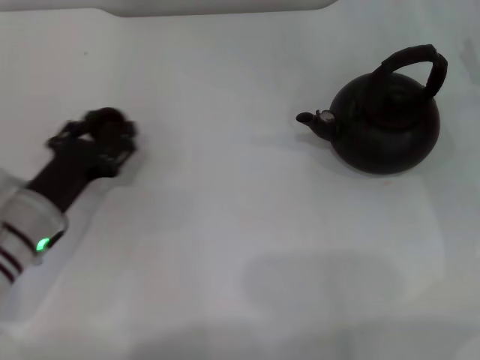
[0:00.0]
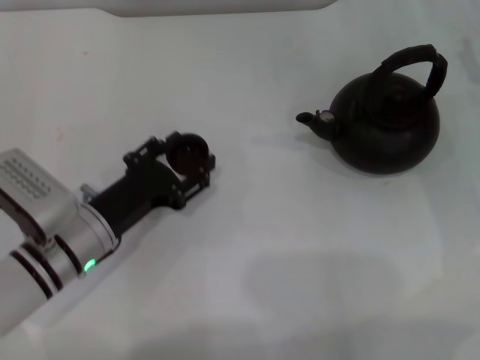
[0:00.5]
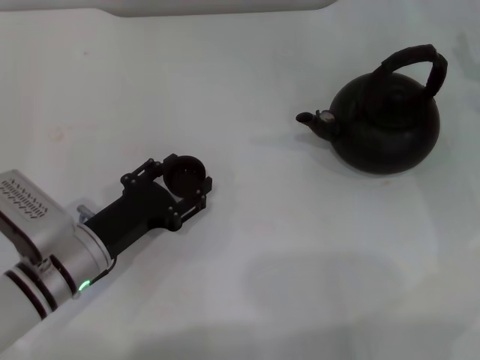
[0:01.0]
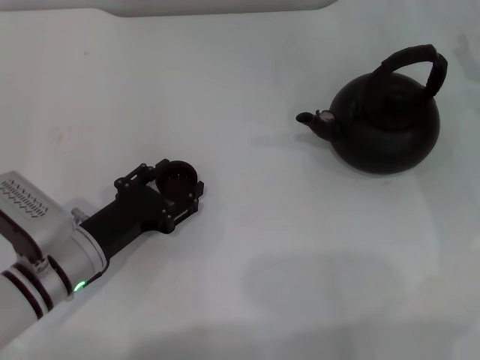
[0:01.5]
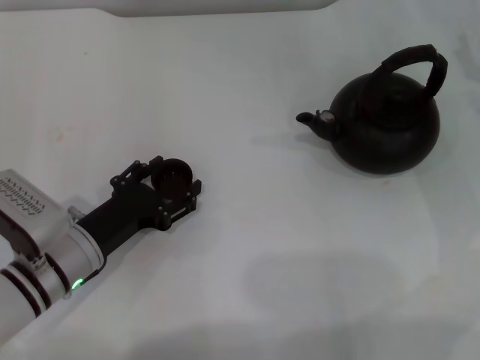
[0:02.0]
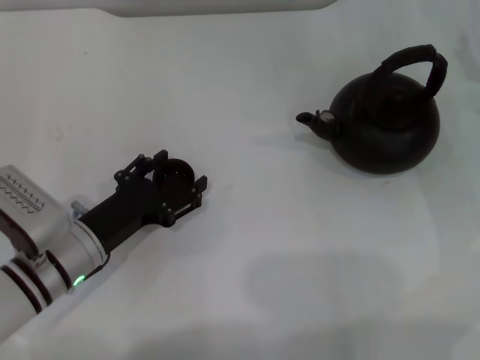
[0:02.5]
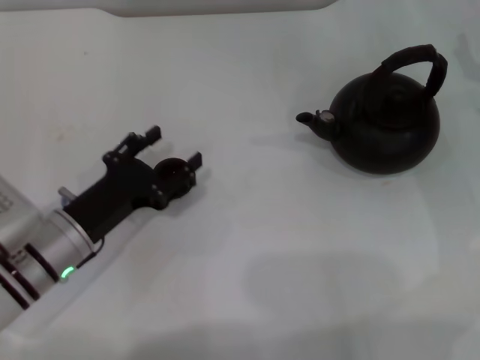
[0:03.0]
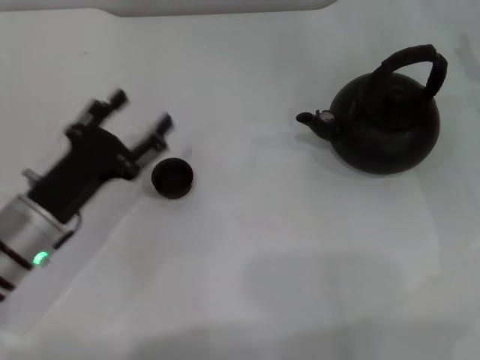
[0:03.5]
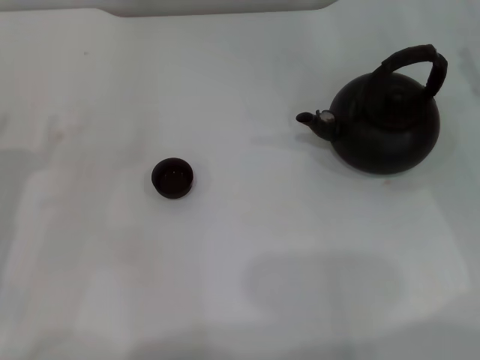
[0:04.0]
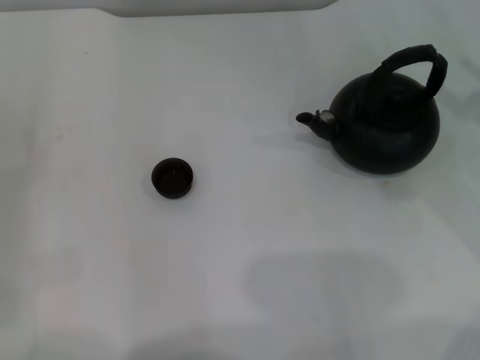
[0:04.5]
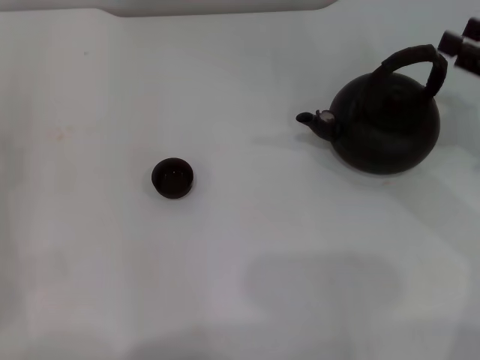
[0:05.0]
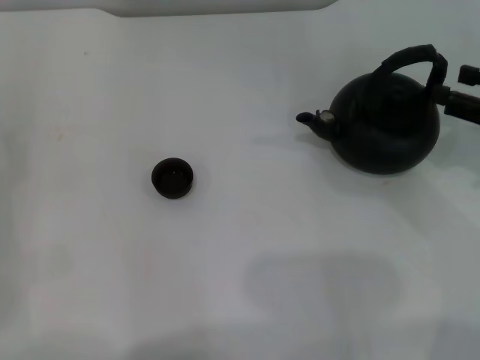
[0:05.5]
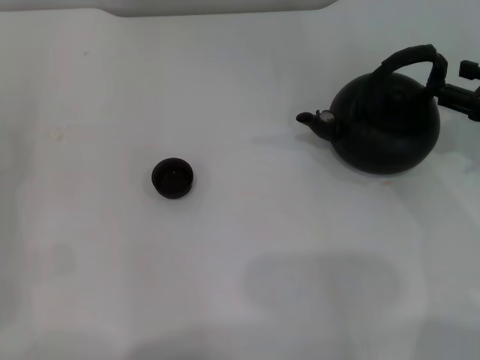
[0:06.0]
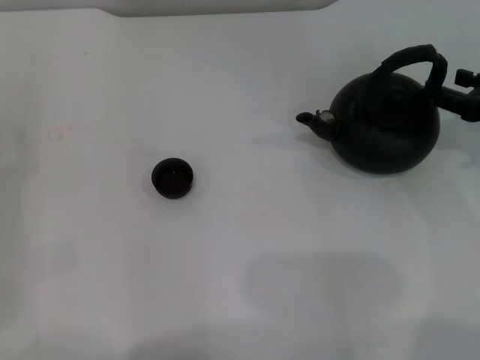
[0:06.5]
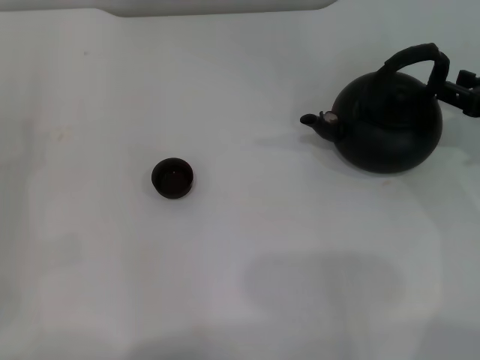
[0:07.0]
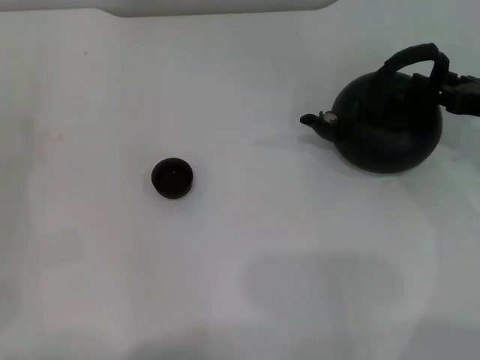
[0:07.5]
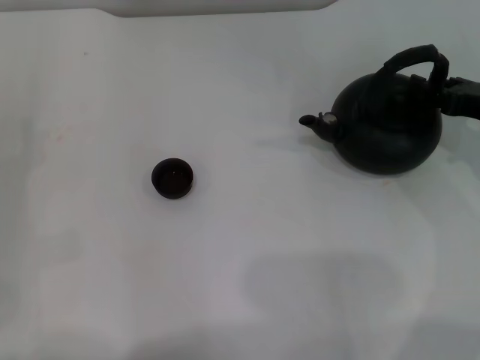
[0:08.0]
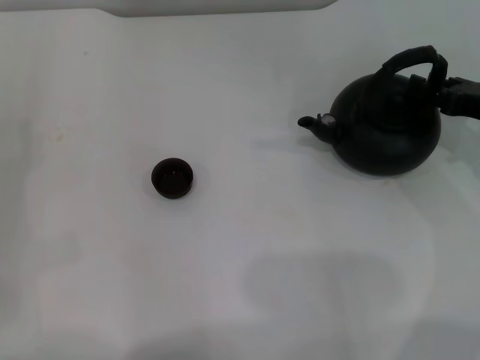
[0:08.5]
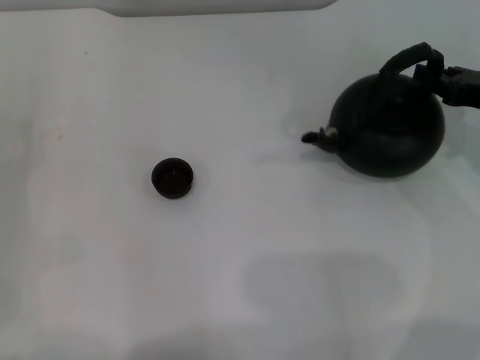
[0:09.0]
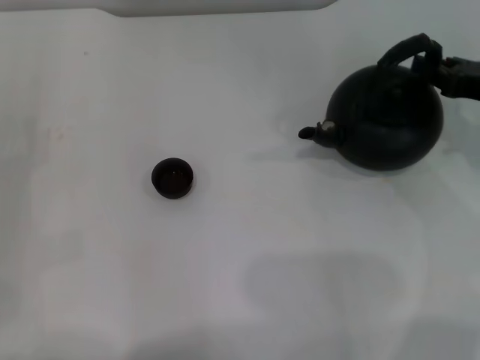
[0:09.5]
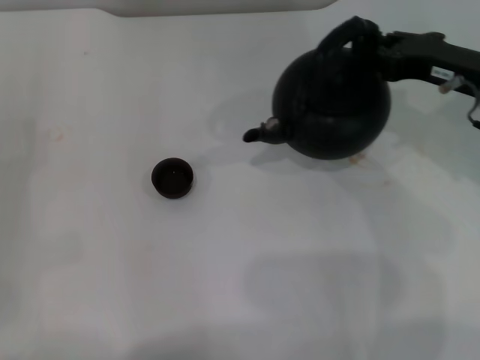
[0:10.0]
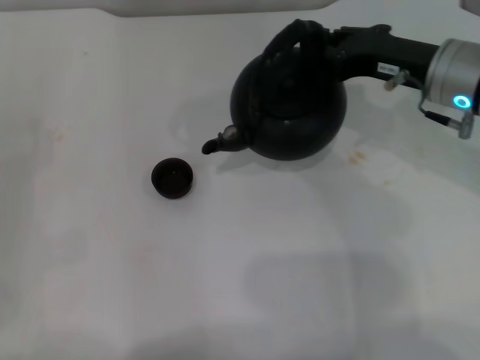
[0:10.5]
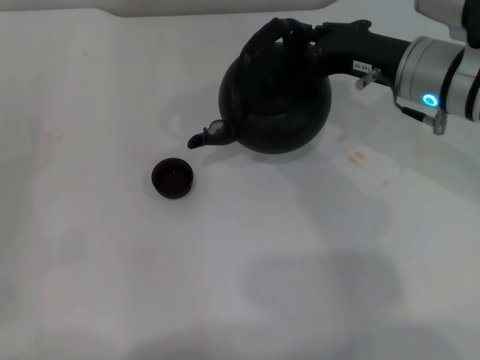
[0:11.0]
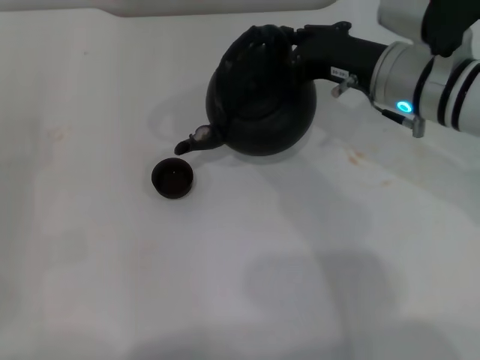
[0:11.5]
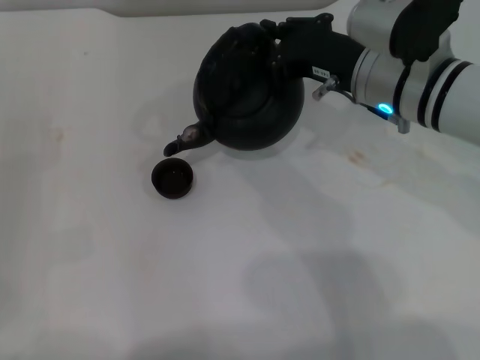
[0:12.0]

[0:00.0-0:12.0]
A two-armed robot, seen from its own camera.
Task of the whole recording: Grasp the handle of the teapot with one hand and pour tea into the teacup.
Step, 0:00.0 to 0:03.0: Place the teacup in the center of view with the left gripper.
Step, 0:03.5 to 0:10.0: Pick up the teapot with the right gripper.
0:00.0 to 0:02.0: There are only small adjustments of the grippers.
0:02.0 to 0:04.0: The left gripper travels to the left by roughly 10 cm, and opens up.
0:06.0 to 0:08.0: There are only small adjustments of the grippers.
0:08.0 to 0:10.0: The right gripper goes roughly 5 cm to the left, and closes up.
0:10.0 to 0:12.0: The right gripper shifts approximately 10 cm to the left.

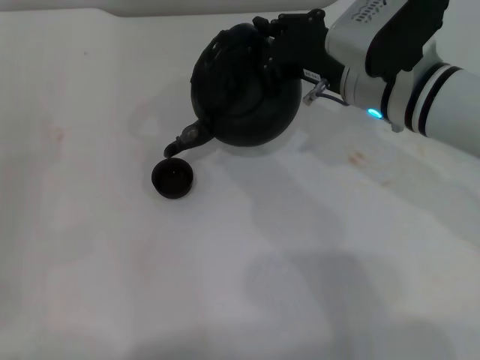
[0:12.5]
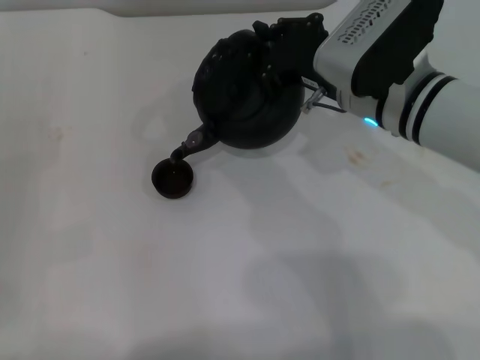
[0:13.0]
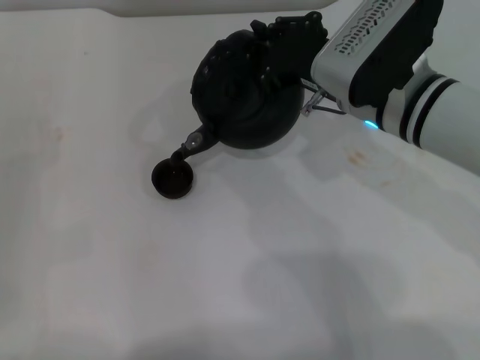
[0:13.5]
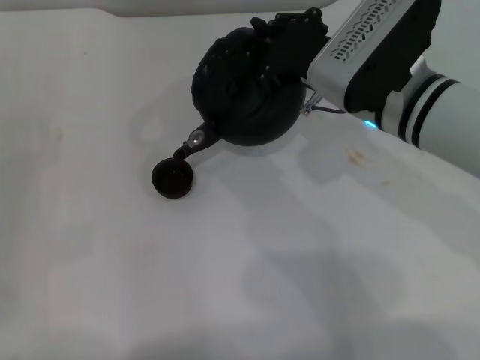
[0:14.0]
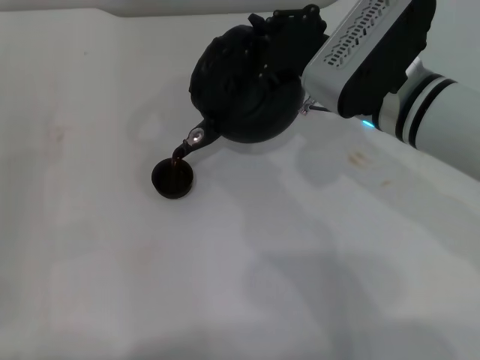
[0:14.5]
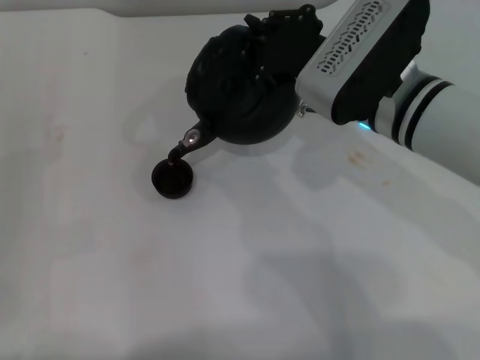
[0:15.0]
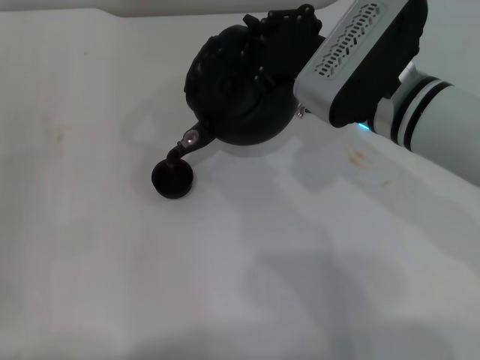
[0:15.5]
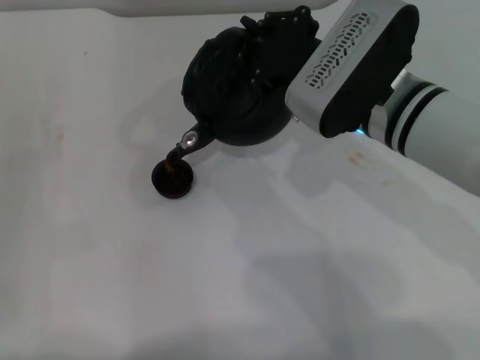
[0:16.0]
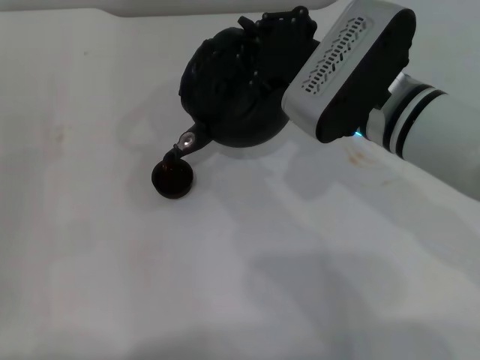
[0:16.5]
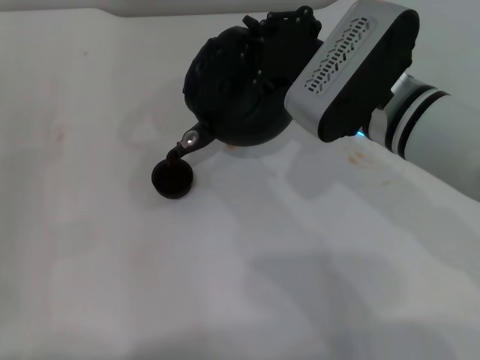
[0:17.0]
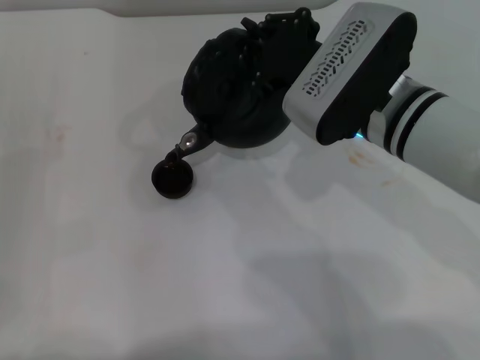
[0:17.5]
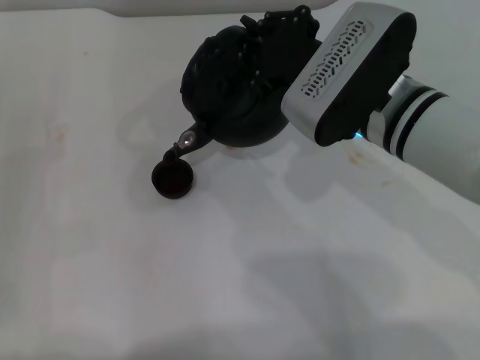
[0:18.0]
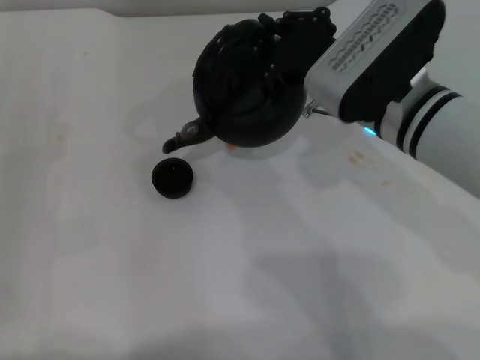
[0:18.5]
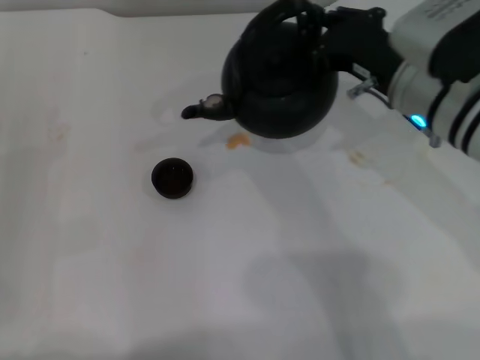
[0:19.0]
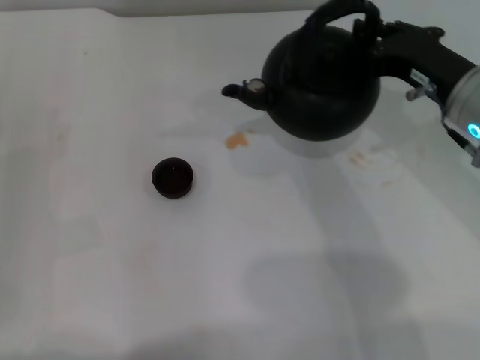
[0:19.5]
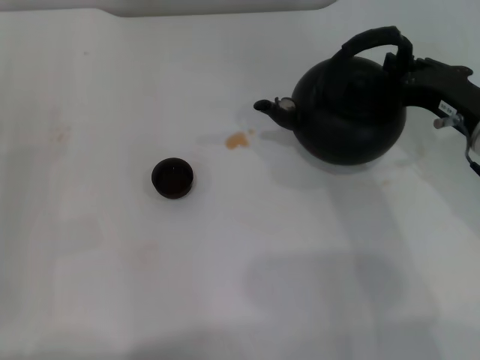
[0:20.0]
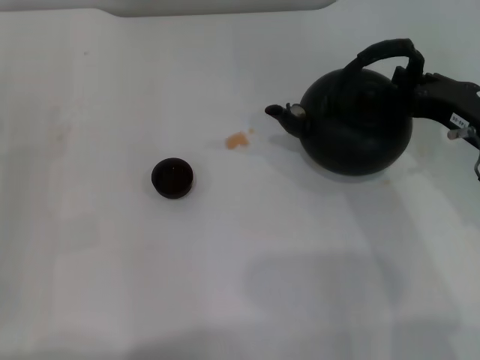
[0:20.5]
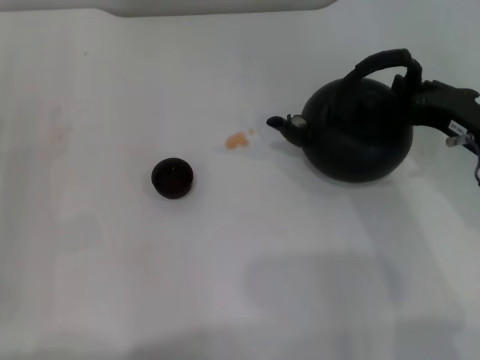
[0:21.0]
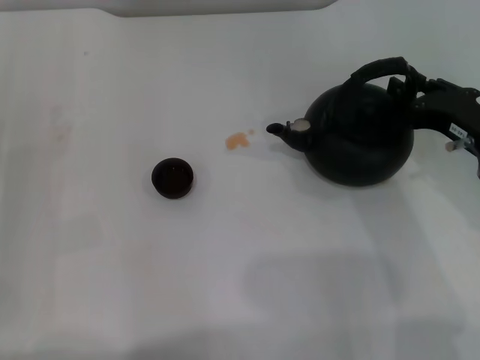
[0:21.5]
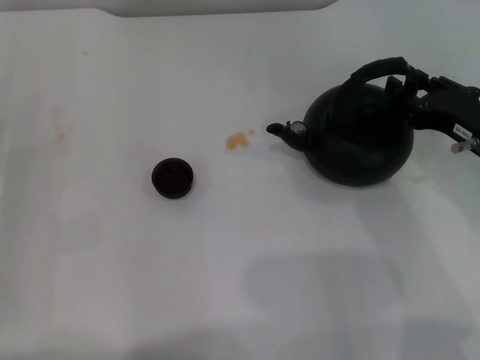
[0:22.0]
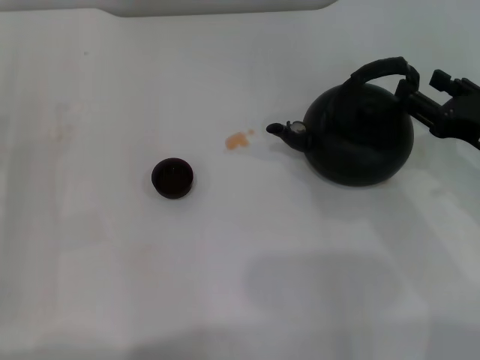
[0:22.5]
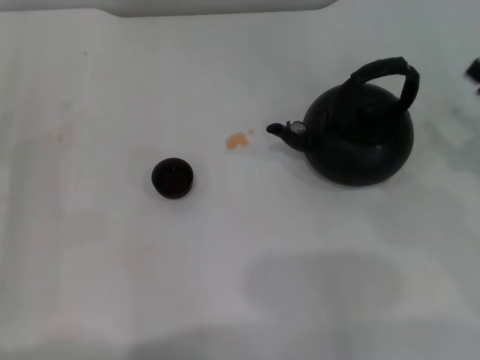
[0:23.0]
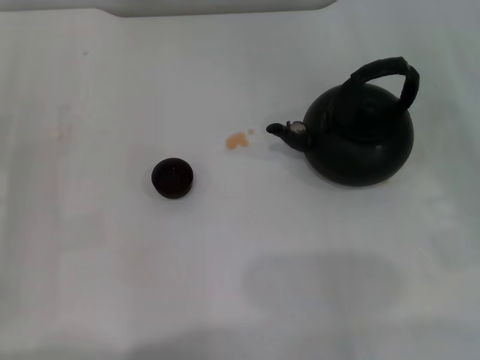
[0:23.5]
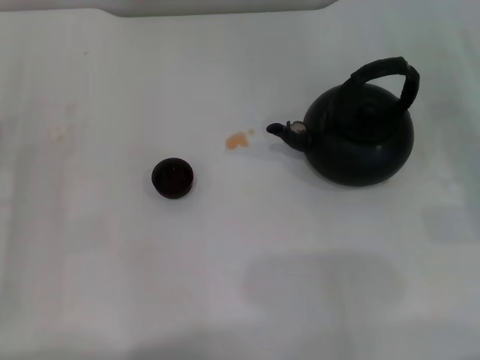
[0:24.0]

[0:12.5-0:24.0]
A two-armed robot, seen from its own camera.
Task of the whole recording: Grasp the handle of the teapot with one hand and pour tea into the teacup.
Step, 0:12.5 to 0:19.0: Pour tea into the teacup with the right gripper.
Step, 0:19.5 to 0:22.5: Put down the teapot with the right gripper.
0:12.5 to 0:18.5: The grippers move only a little.
0:18.5 to 0:20.0: The right gripper moves to the right, approximately 10 cm.
0:20.0 to 0:22.0: The right gripper opens up.
0:22.0 to 0:24.0: The right gripper moves to the right, about 10 cm, and opens its fingers.

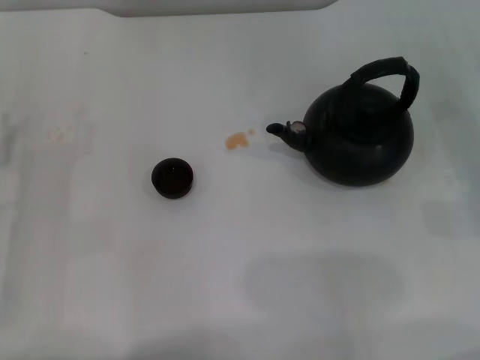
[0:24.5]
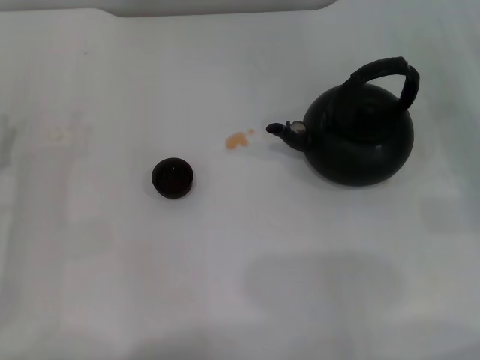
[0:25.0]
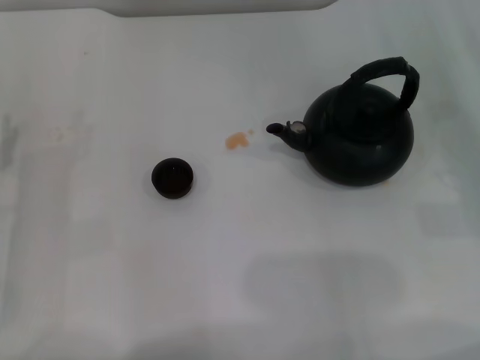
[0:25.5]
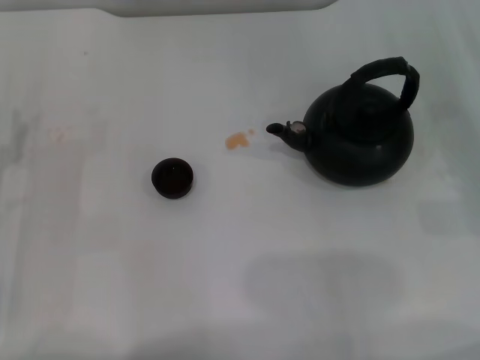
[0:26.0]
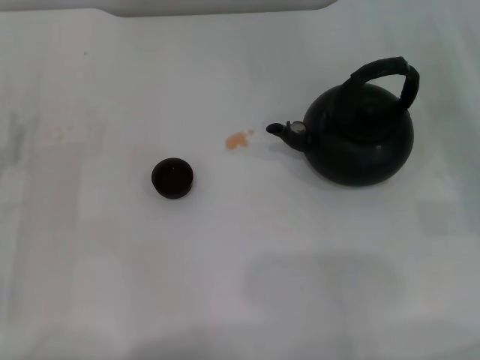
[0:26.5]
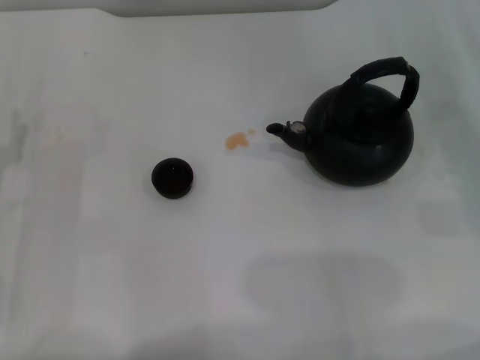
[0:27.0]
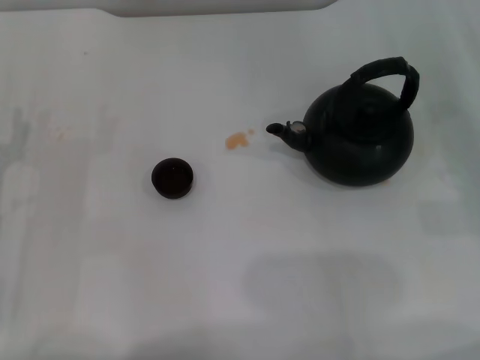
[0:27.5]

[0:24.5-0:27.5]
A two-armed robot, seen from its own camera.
Task of the whole recording: Grasp the handle of the teapot with one hand and pour tea into the teacup.
0:24.5 to 0:27.5: Both grippers stay about where they are.
